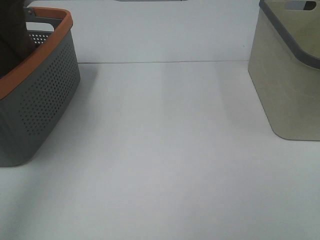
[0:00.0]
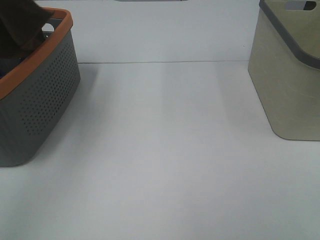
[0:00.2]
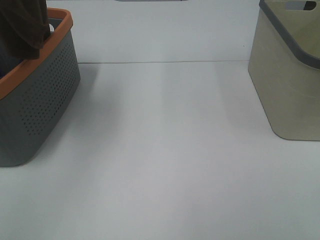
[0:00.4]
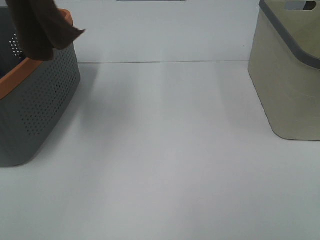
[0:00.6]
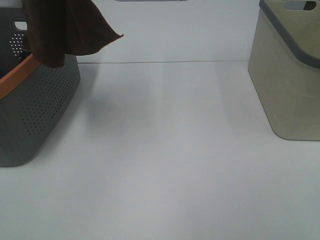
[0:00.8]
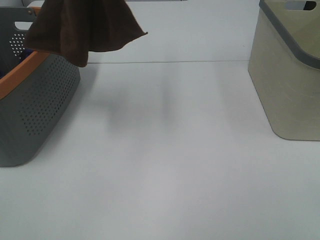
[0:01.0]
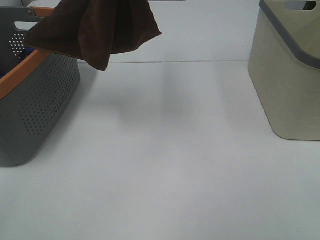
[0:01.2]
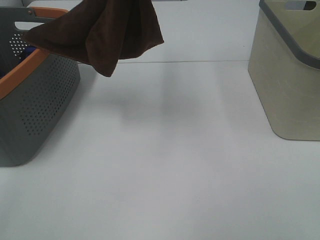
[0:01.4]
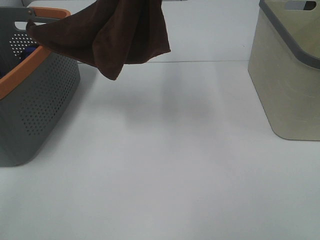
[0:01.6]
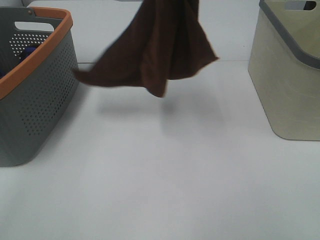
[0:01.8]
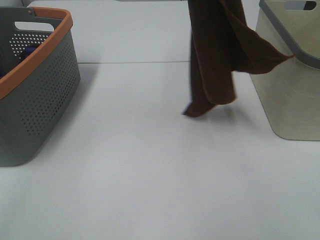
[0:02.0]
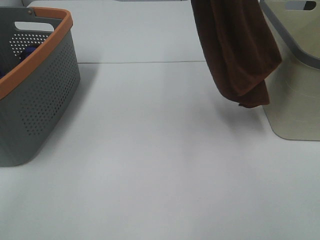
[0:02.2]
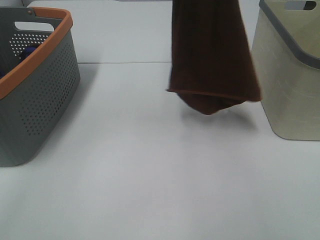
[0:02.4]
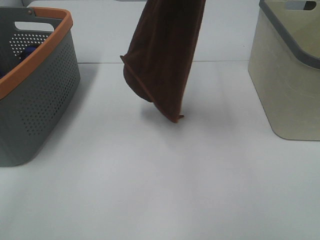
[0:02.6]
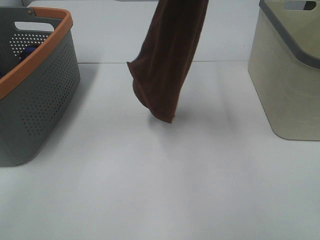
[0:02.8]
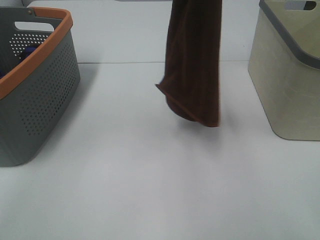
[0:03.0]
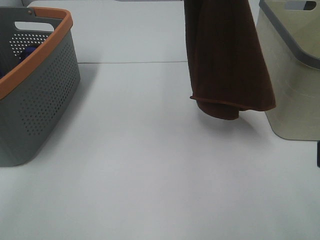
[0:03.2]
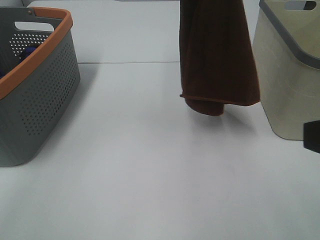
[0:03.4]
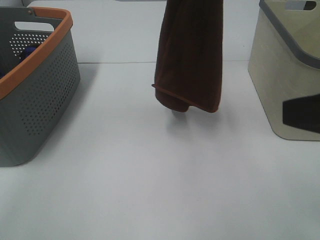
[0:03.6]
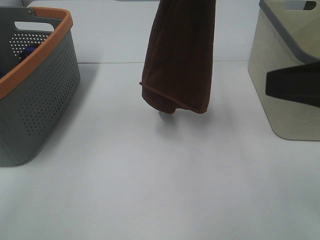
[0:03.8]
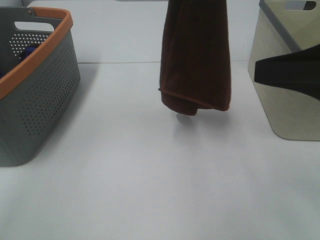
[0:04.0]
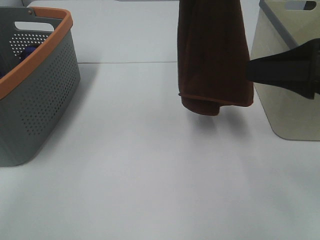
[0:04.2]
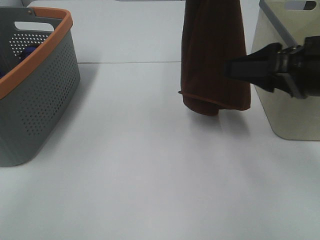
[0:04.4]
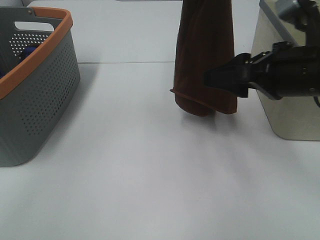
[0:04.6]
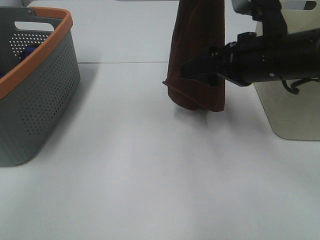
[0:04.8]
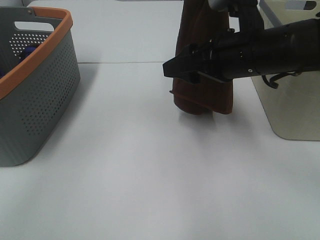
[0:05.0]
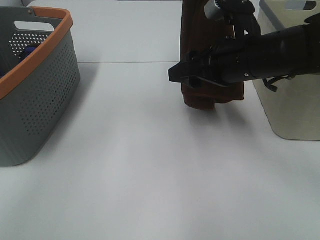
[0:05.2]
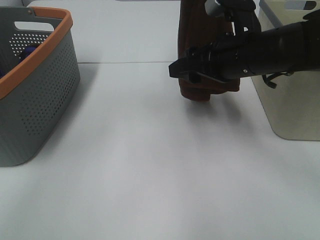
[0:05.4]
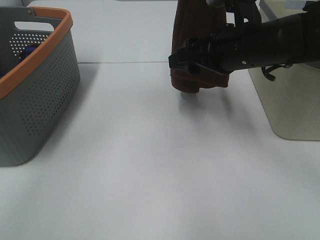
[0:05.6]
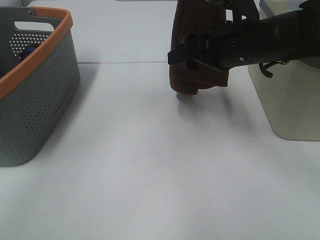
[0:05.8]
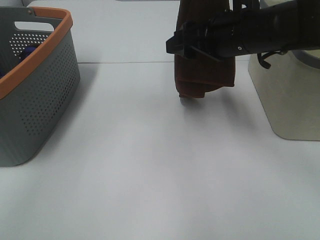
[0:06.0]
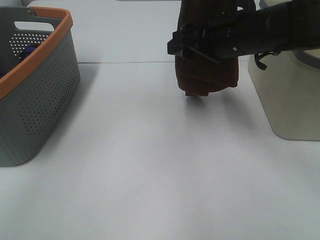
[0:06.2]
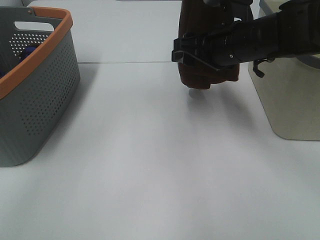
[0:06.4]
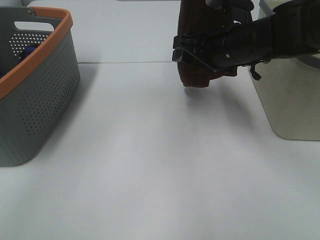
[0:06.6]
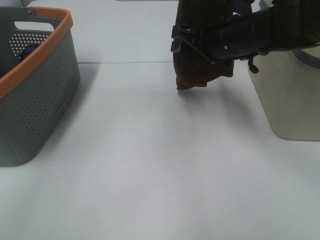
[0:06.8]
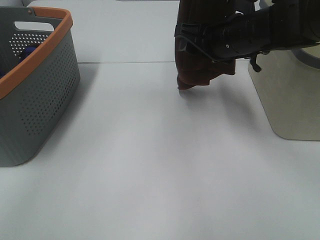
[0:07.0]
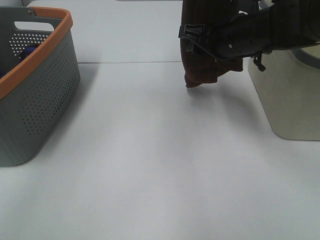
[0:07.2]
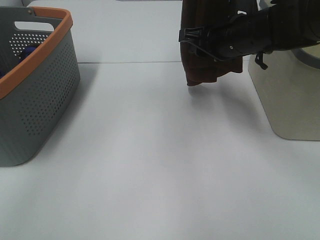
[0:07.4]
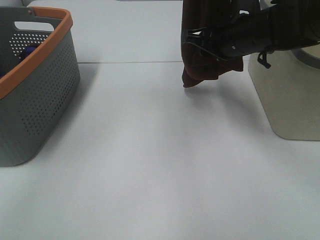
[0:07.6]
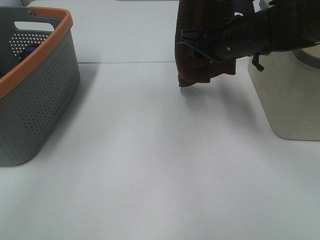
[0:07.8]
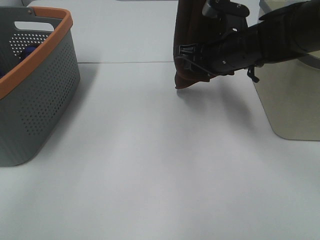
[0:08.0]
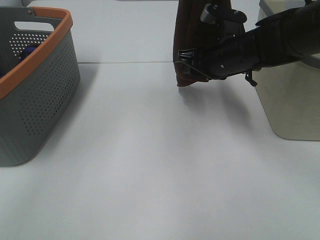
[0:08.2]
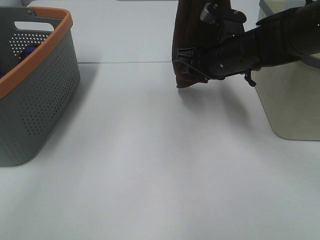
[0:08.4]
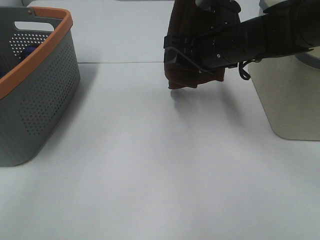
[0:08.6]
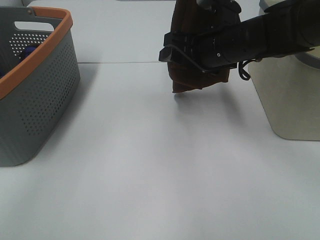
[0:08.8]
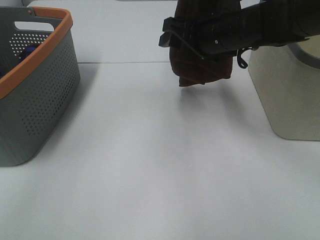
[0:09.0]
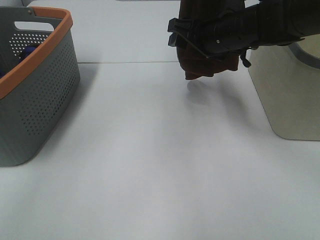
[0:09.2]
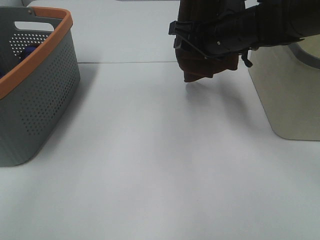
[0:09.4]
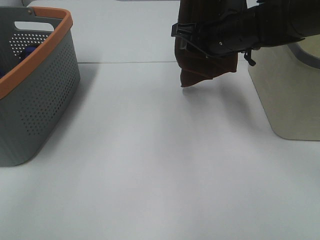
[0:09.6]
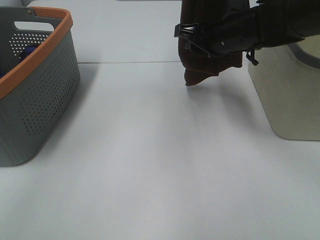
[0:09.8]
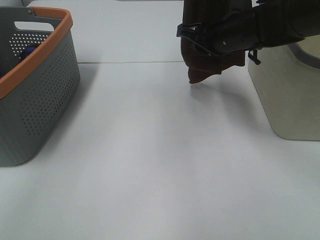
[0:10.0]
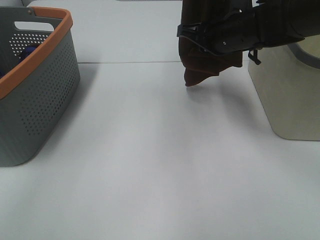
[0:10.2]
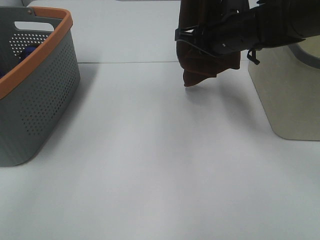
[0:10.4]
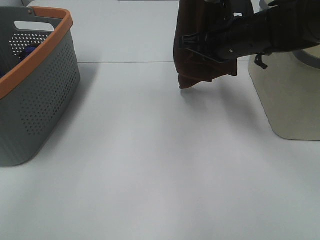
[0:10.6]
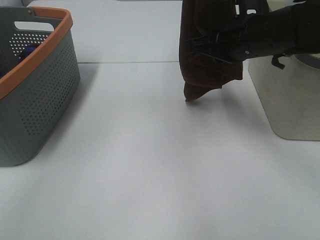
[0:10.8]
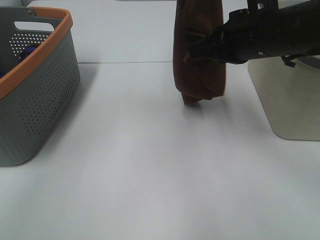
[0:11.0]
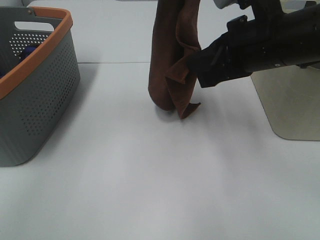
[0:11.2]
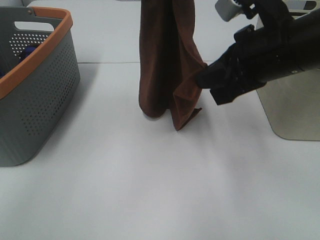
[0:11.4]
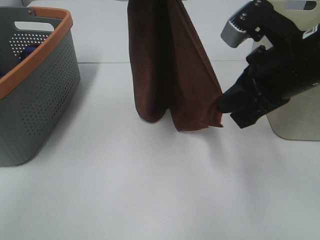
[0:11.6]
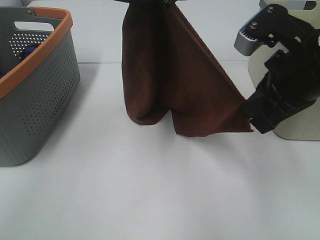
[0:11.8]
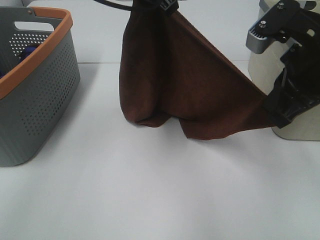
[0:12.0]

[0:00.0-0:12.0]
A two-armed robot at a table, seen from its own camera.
Task of the whole recording: Remove the towel and place it.
Step, 0:00.0 to 0:08.4: Right hand: grab a corner of the brown towel and straighten it.
Step, 0:08.6 to 0:11.0: Right hand: spread the brown towel flat on the table.
0:00.0 to 0:01.6: The left gripper goes roughly 20 cm to the right.
0:01.6 to 0:03.0: The right gripper goes about 5 cm forward.
0:03.0 to 0:04.4: The right gripper goes some 20 cm forward.
0:04.4 to 0:06.0: The right gripper is displaced forward and to the left by about 15 cm.
0:06.0 to 0:07.6: The right gripper closes.
0:07.6 to 0:09.0: The right gripper opens.
0:09.0 to 0:10.4: The right gripper closes its fingers.
0:10.4 to 0:12.0: The right gripper heads backward and upward, covering roughly 15 cm, while the left gripper moves about 5 cm.

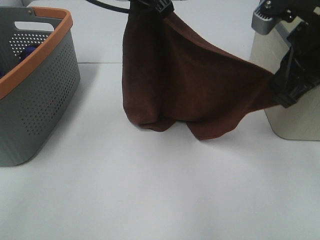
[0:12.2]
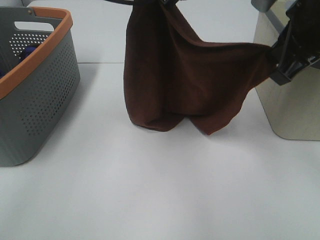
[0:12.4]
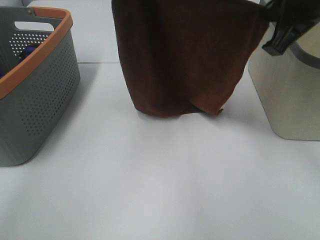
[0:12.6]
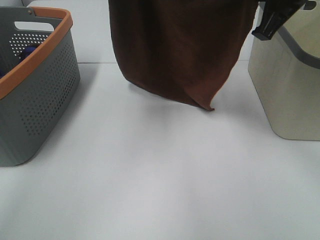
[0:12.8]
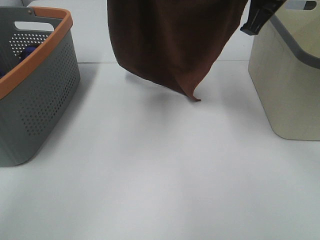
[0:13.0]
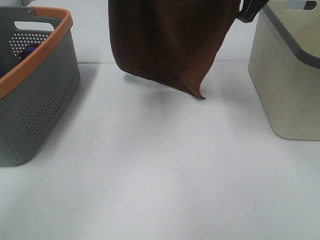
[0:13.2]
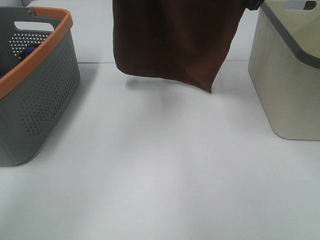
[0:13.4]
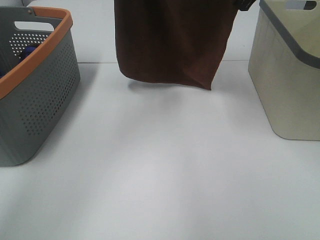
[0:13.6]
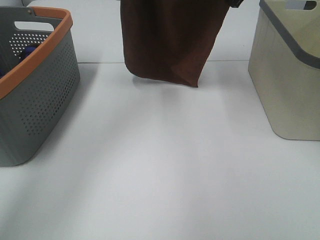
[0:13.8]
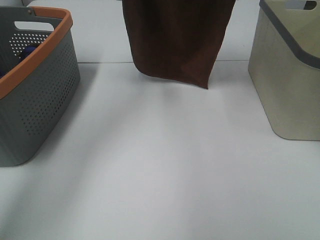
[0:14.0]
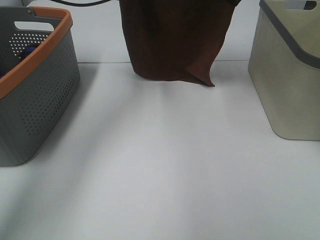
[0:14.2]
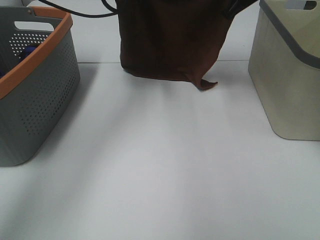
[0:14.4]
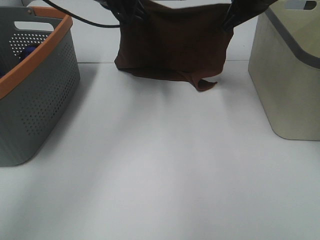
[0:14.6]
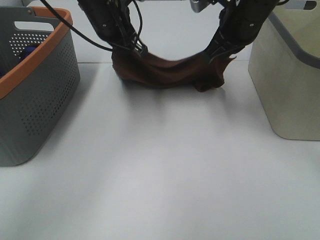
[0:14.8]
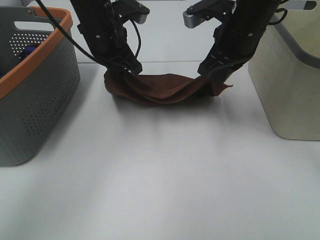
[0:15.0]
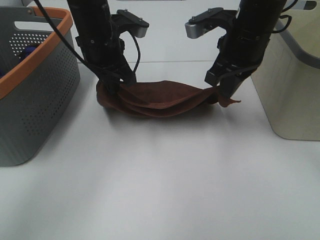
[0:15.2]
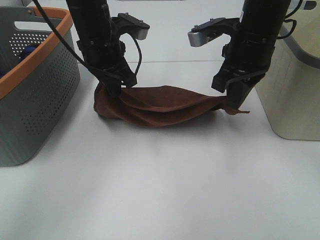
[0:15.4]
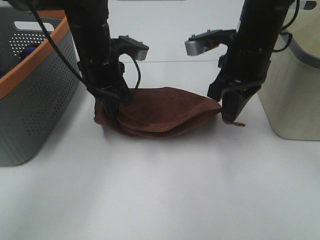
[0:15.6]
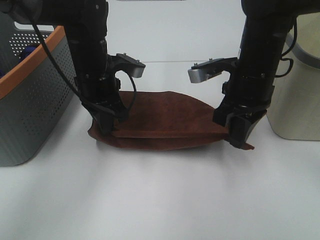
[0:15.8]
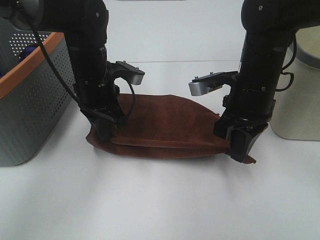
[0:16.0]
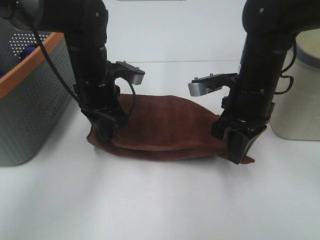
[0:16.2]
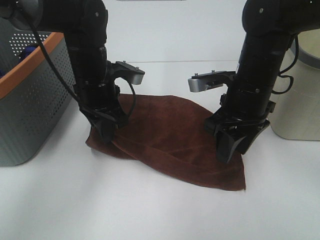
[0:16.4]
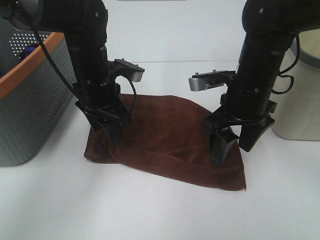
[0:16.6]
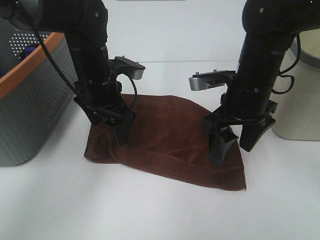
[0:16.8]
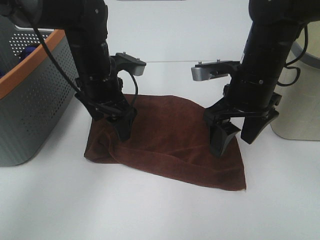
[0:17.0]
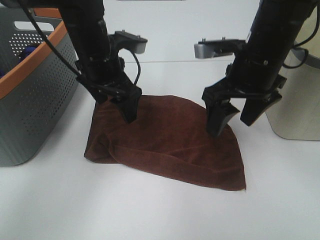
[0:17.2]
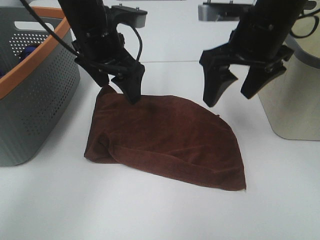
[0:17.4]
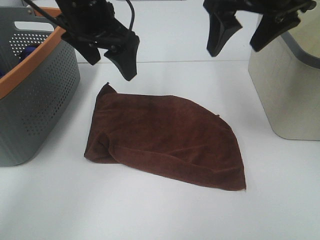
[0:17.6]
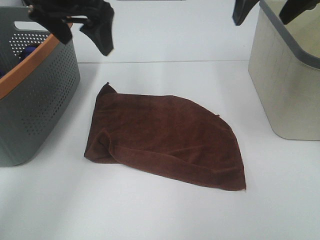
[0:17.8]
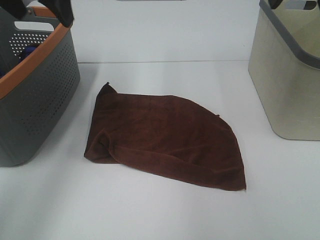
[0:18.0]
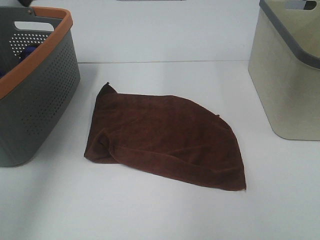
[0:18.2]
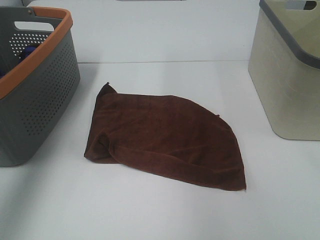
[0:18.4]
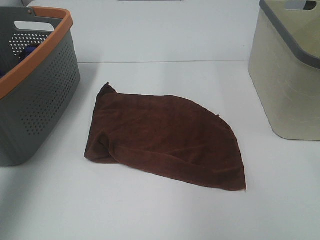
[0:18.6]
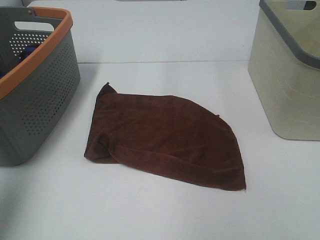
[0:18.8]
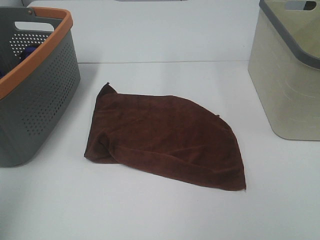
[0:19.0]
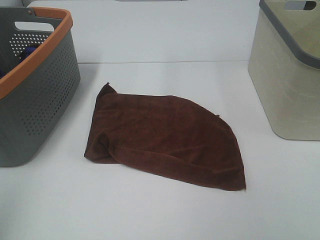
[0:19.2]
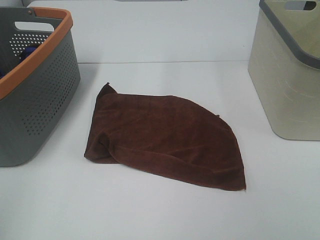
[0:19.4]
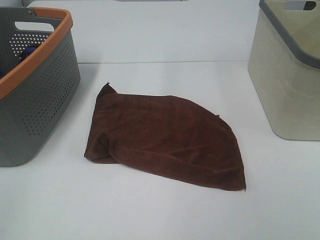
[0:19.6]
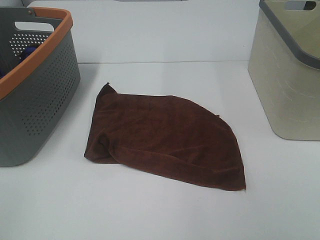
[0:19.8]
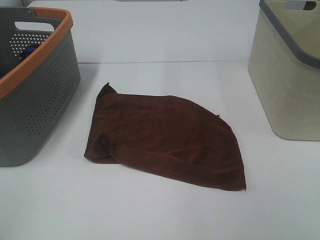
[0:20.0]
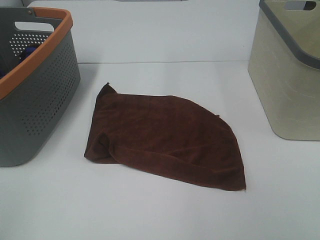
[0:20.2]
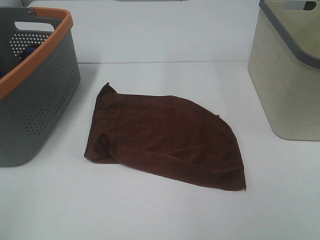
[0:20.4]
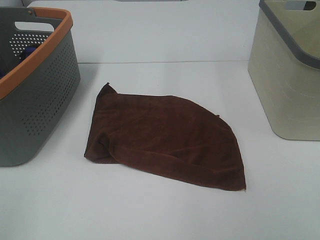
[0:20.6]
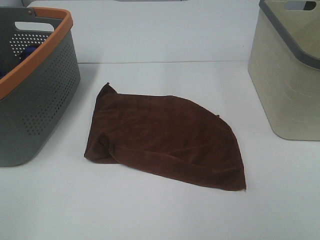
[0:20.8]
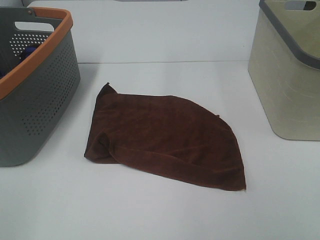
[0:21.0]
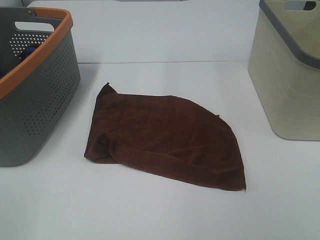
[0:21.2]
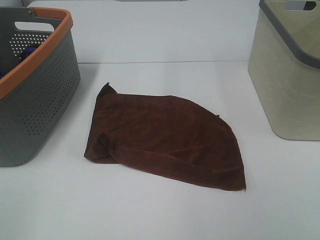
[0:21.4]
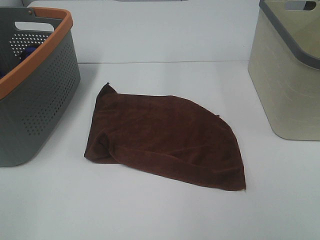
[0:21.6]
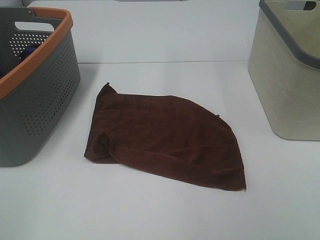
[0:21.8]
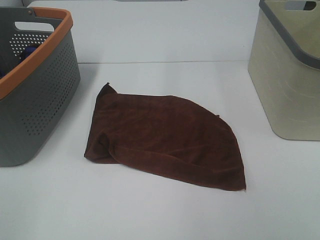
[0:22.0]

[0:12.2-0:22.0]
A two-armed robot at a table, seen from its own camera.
Task of the whole recording: Remove the towel and place it.
0:12.2 to 0:13.6: The right gripper goes about 15 cm forward. Meanwhile the left gripper heads forward and to the left, covering about 10 cm.
0:13.6 to 0:15.0: Both grippers move downward, approximately 10 cm.
0:15.0 to 0:16.4: Both grippers move downward and backward, approximately 10 cm. The right gripper opens up.
0:16.4 to 0:17.8: The two grippers go about 20 cm upward. The left gripper opens up.
0:17.8 to 0:19.2: The left gripper heads backward and to the left, covering approximately 35 cm. Meanwhile the right gripper is displaced backward by roughly 35 cm.
